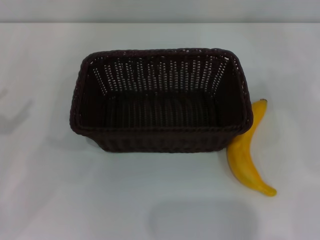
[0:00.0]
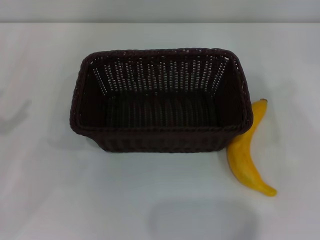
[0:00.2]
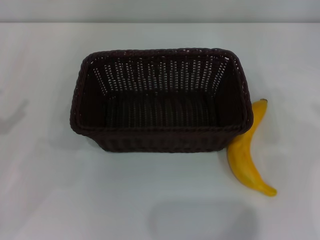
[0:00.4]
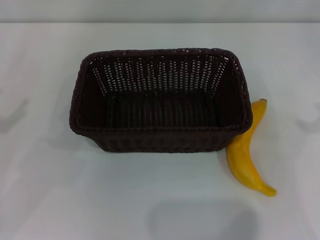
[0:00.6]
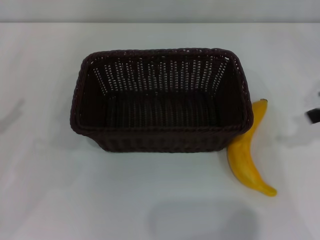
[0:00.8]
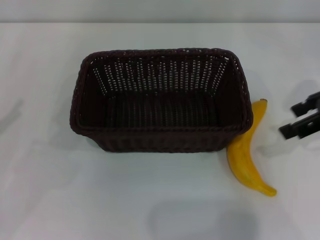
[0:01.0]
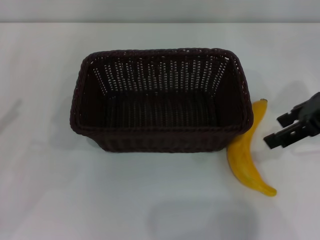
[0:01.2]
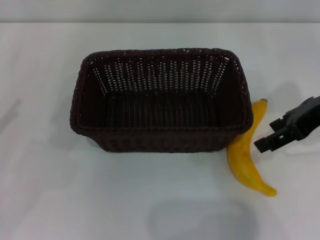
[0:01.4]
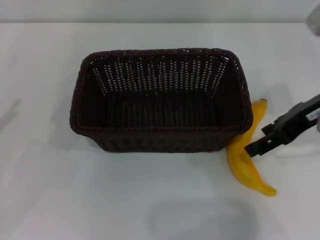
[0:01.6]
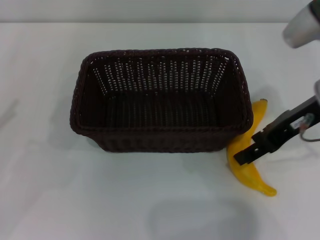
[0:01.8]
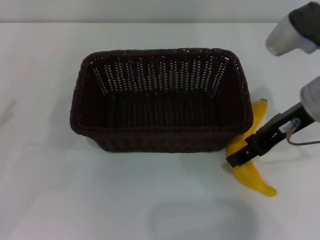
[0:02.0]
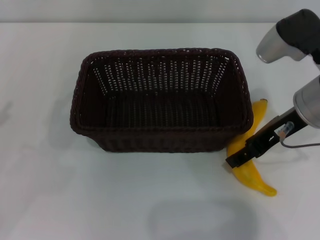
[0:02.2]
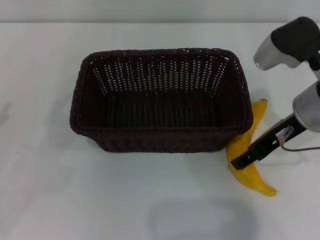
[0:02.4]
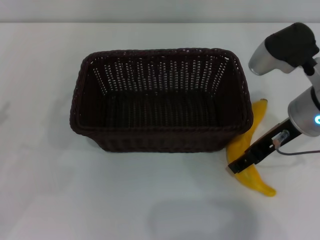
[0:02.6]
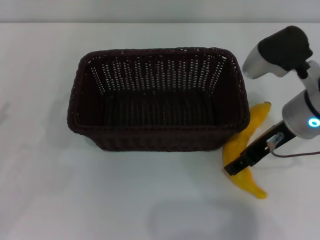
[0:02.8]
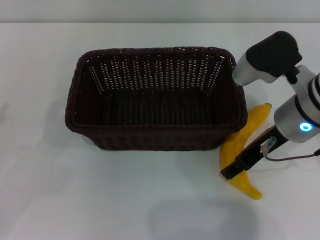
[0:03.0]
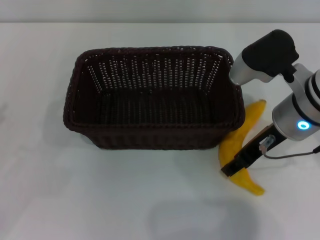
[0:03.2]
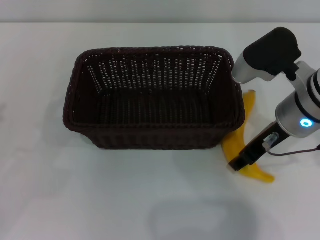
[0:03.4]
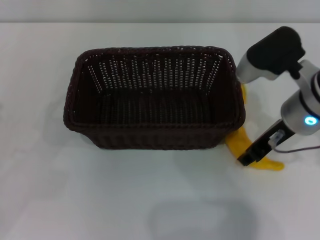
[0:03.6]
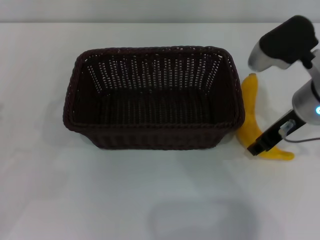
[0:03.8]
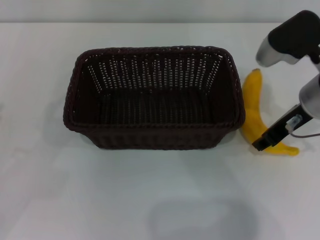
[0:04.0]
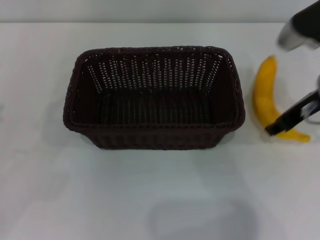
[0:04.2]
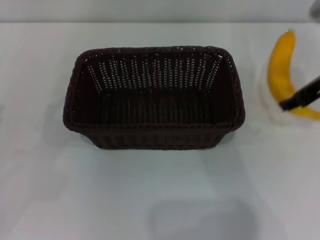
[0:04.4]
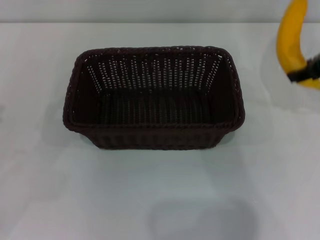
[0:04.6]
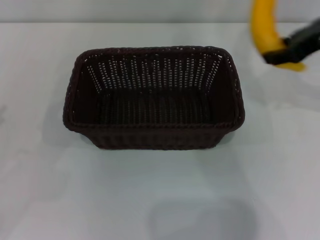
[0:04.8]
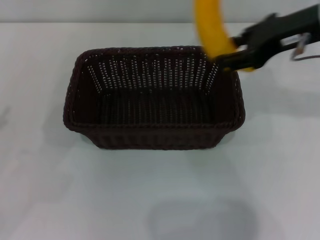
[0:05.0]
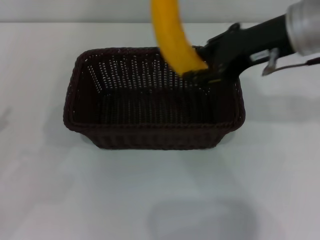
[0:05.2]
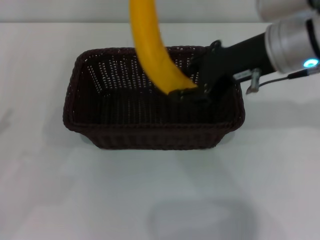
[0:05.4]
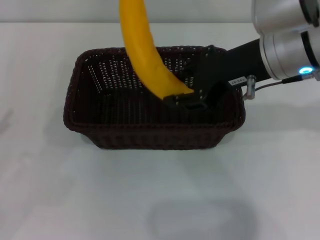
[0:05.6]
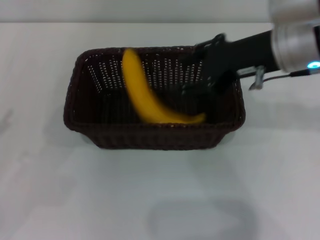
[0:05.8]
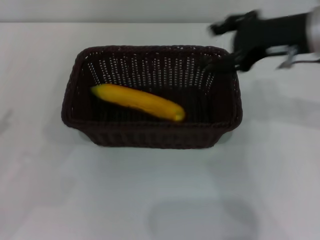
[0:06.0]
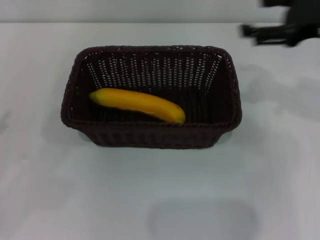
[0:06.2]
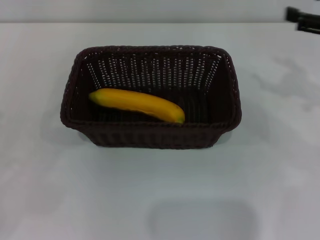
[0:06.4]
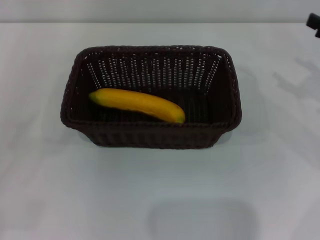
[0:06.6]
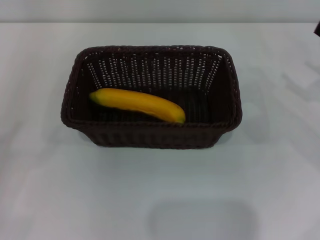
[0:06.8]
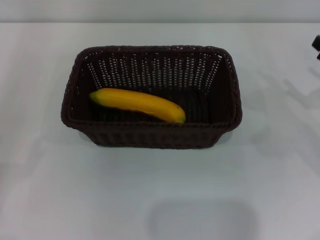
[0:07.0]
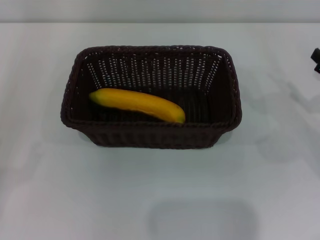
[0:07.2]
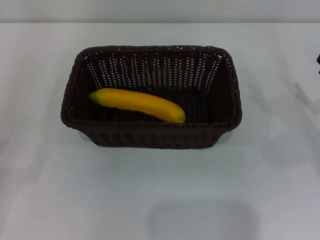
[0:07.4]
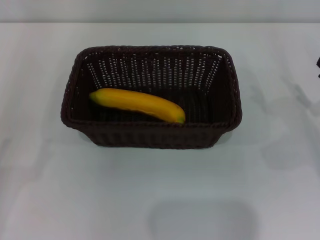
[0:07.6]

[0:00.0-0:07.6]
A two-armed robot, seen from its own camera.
Step, 0:00.0 to 0:04.2: Pick up the banana with the right gripper.
Step, 0:04.4 to 0:05.8: Place the banana into the dark basket with the right gripper.
0:00.0 to 0:01.6: The right gripper is displaced to the left by roughly 20 cm.
0:01.6 to 0:03.0: The right gripper is displaced to the left and downward by roughly 10 cm.
0:03.0 to 0:04.6: The right gripper travels to the right and upward by some 15 cm, and closes.
0:04.6 to 0:06.0: The right gripper shifts about 5 cm to the left, and opens.
0:06.0 to 0:07.6: The right gripper goes approximately 25 cm downward and to the right, and opens its fingers, while the left gripper is displaced downward and backward by about 10 cm.

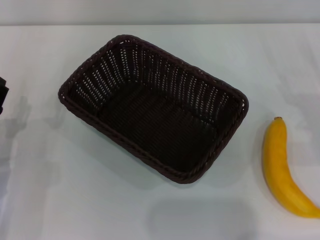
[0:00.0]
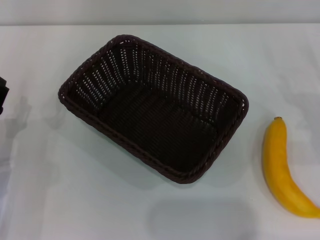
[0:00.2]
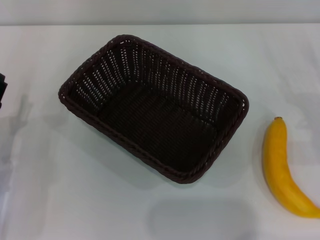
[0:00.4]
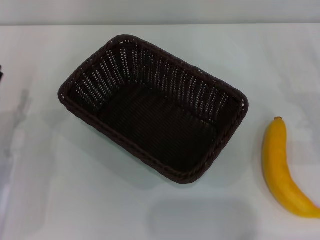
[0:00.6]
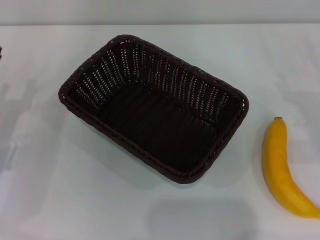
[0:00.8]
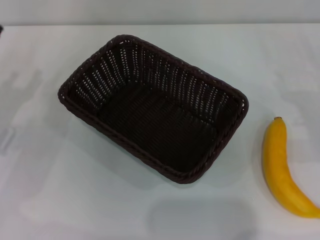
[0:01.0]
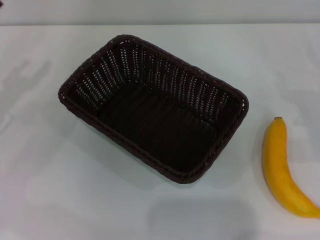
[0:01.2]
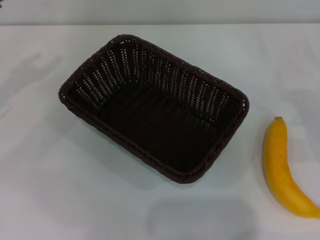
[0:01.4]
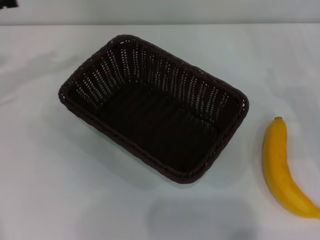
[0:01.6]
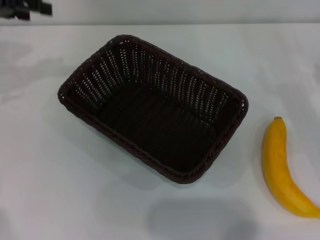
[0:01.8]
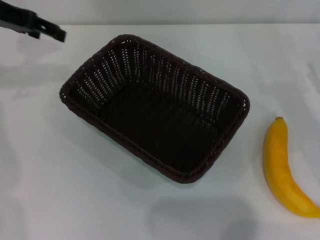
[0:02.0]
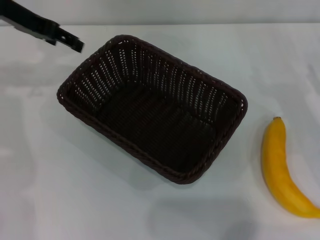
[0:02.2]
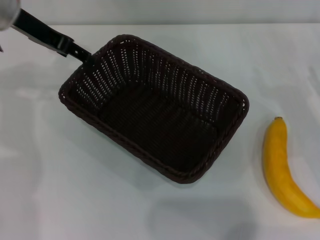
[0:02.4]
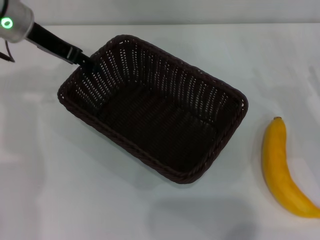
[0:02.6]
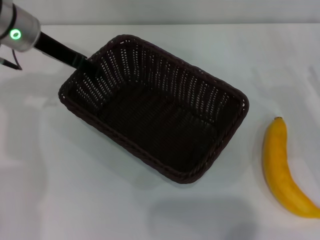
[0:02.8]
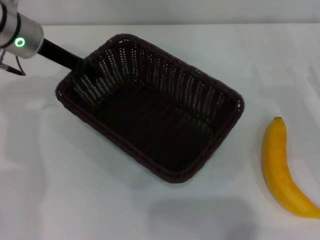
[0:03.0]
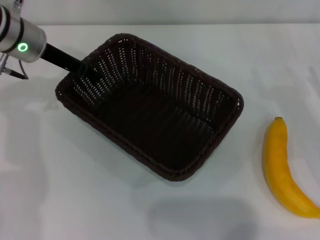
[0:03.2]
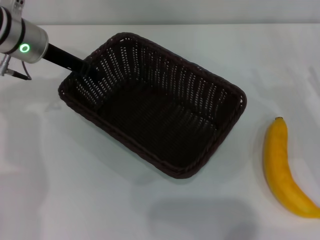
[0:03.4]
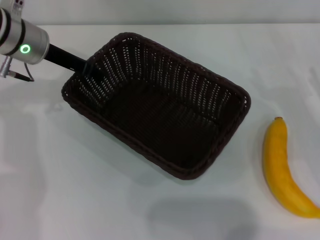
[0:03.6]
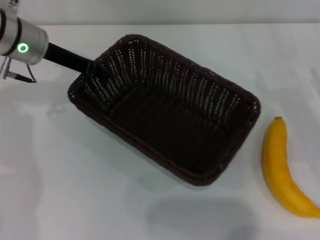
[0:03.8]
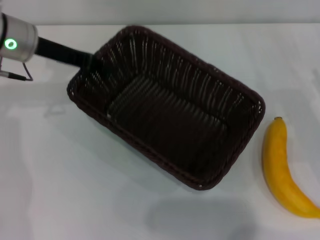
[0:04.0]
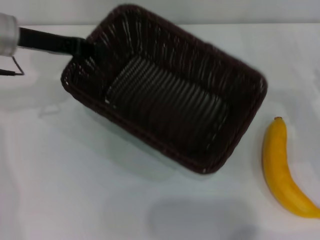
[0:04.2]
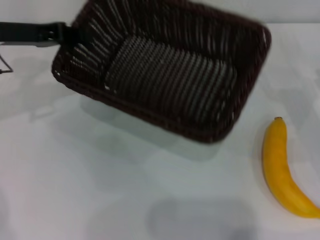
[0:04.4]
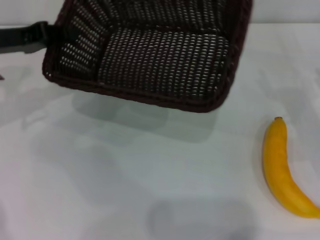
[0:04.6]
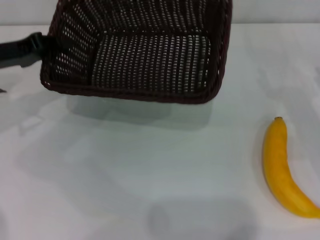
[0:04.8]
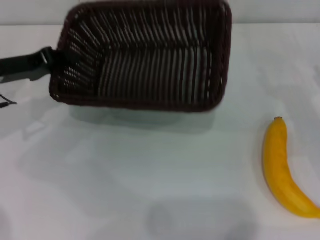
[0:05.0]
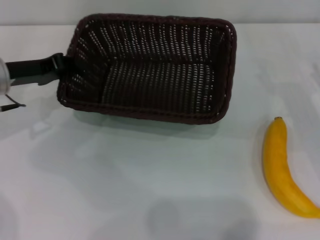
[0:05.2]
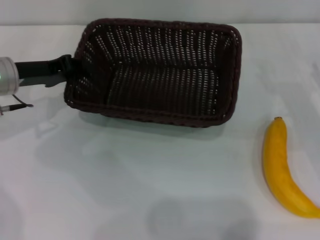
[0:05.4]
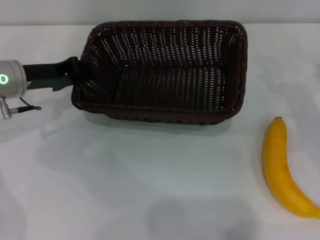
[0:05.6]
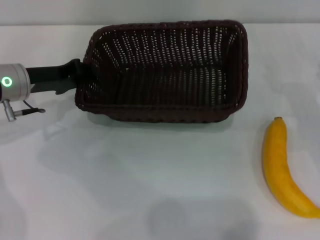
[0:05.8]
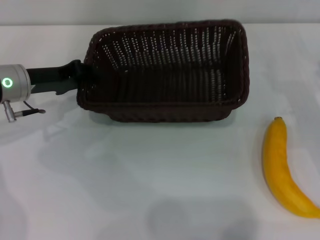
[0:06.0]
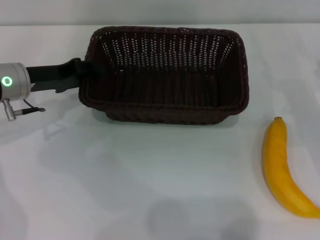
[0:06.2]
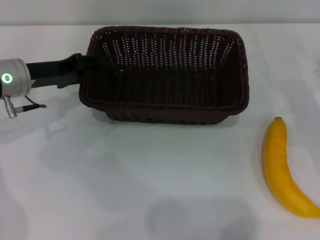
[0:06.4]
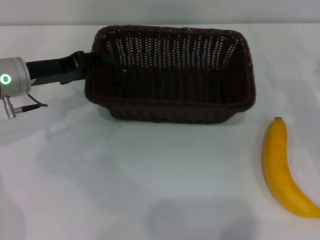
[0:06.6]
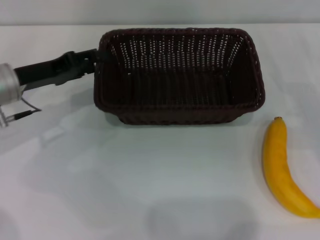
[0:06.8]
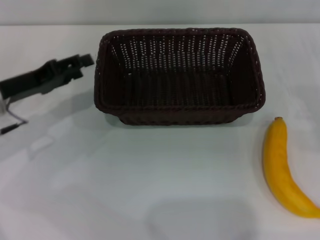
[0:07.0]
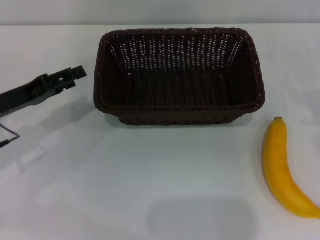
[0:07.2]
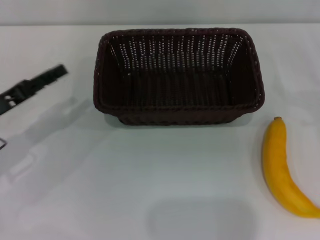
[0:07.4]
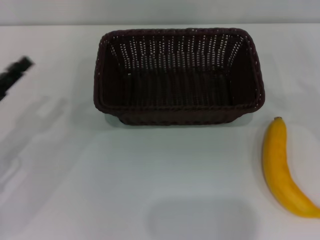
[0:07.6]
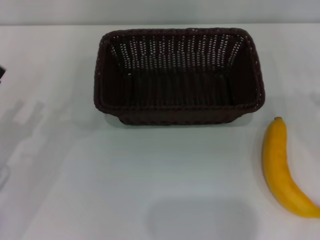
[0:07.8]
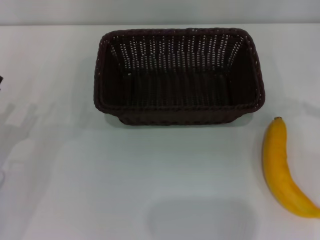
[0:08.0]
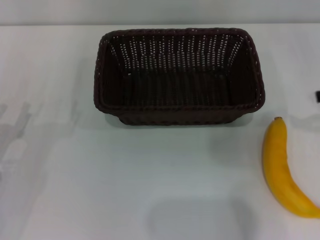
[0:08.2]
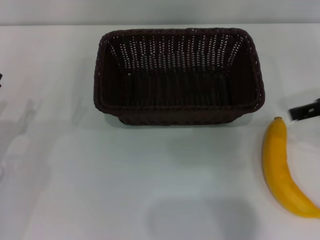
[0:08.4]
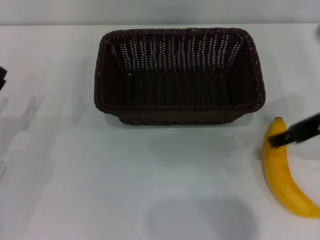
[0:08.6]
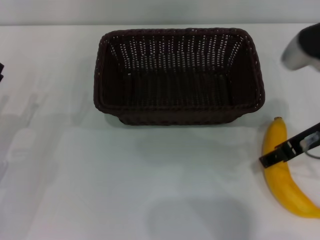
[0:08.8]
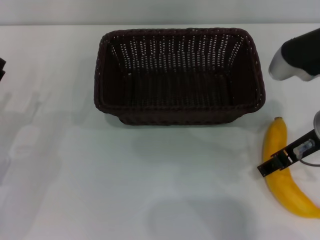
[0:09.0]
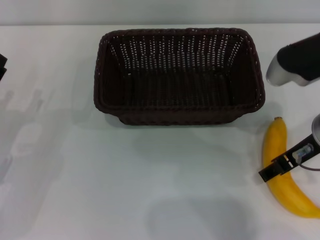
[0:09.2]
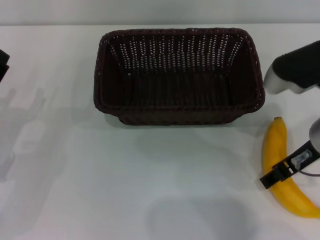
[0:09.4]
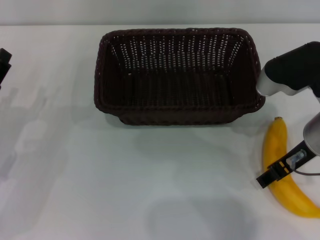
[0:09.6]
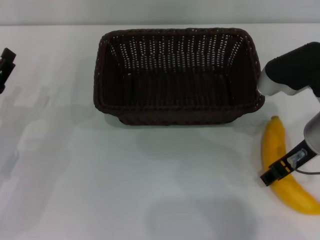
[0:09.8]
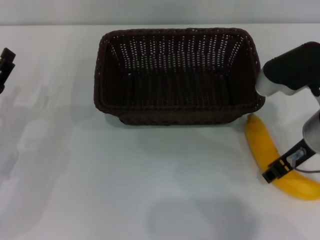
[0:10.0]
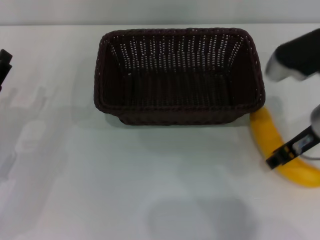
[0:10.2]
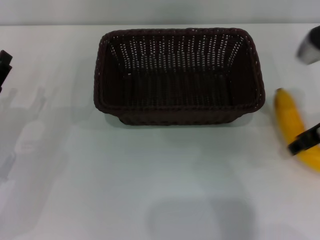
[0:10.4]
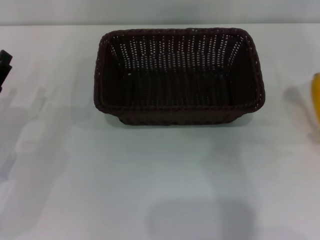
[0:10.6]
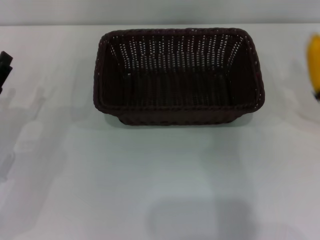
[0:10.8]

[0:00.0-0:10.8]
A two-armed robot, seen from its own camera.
Step, 0:00.0 to 0:04.0: Pick up the dark basket with the left gripper.
Step, 0:04.4 to 0:07.0: Place the dark basket in the center of view with the left gripper.
Step, 0:07.2 to 0:10.8: Pick up the banana with the right gripper.
0:00.0 to 0:01.6: The left gripper shifts approximately 25 cm upward and forward.
0:01.6 to 0:03.0: The left gripper travels to the right by roughly 15 cm.
0:03.0 to 0:04.6: The left gripper is displaced to the left and backward by approximately 10 cm, and closes up.
0:04.6 to 0:06.2: The left gripper heads downward, covering approximately 5 cm.
0:06.2 to 0:07.8: The left gripper heads backward and to the left, covering some 15 cm, and opens up. The right gripper is displaced upward and to the right by about 10 cm.
0:07.8 to 0:09.2: The right gripper moves to the left, approximately 20 cm.
0:09.2 to 0:10.8: The right gripper moves to the right and forward, roughly 10 cm, and closes.

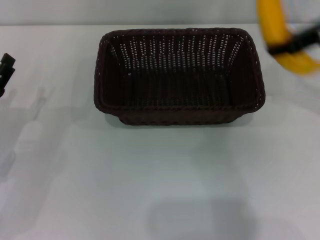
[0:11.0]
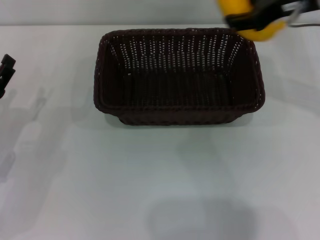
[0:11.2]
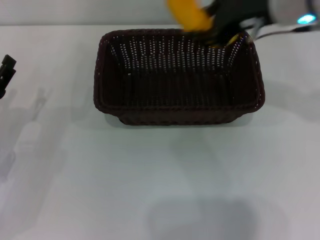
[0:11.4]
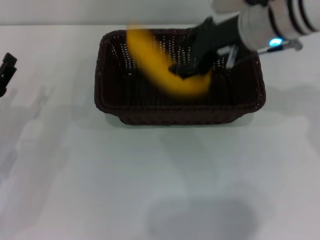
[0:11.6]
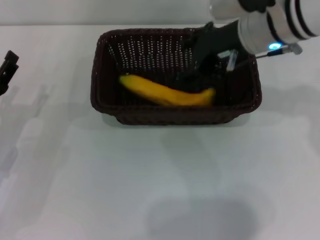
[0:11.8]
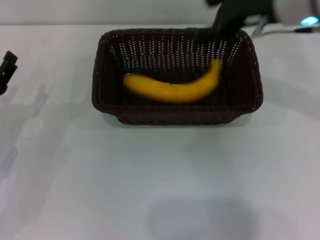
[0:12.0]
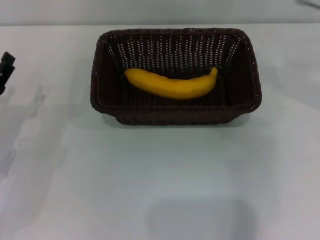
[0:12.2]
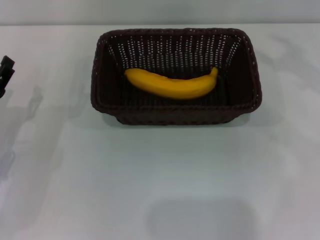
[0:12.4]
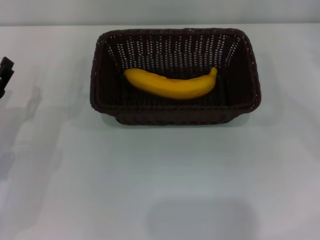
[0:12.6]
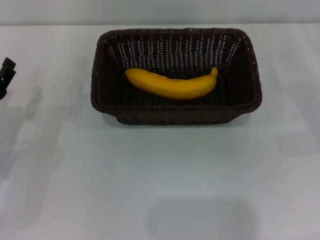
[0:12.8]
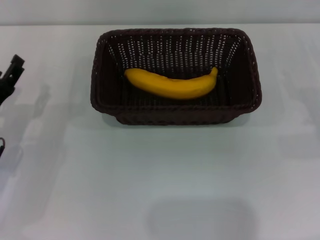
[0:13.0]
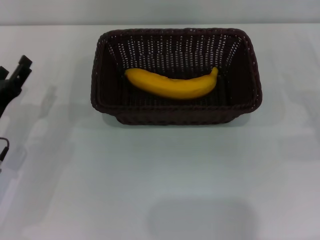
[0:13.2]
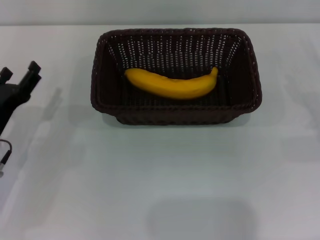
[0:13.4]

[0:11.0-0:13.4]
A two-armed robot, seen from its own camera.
Step, 0:11.0 to 0:11.8: Place the banana into the dark basket with the right gripper.
0:11.0 to 0:12.2: The right gripper travels to the left and back again, some 10 cm each way, and opens up.

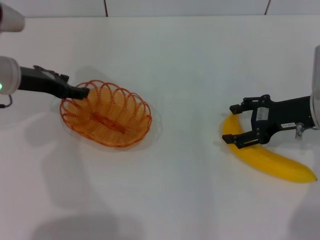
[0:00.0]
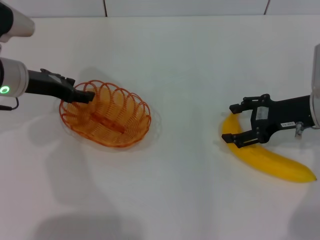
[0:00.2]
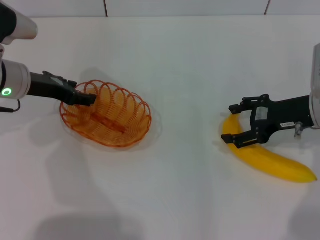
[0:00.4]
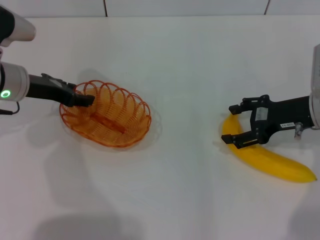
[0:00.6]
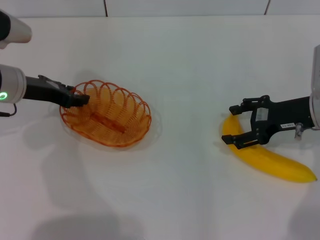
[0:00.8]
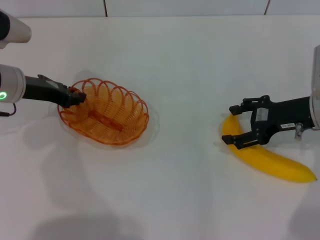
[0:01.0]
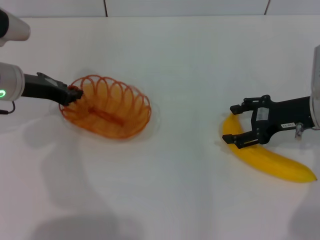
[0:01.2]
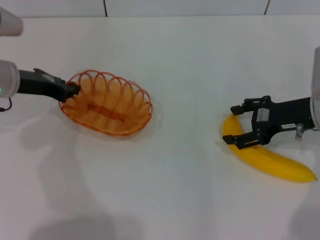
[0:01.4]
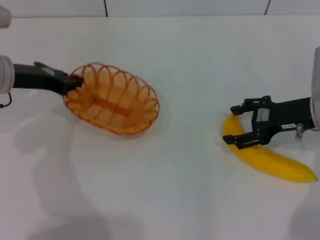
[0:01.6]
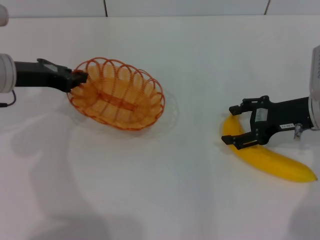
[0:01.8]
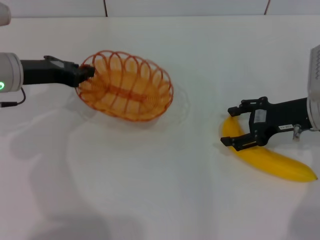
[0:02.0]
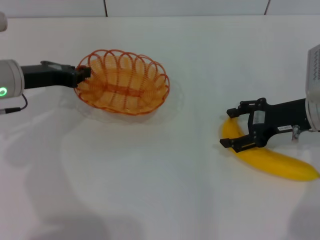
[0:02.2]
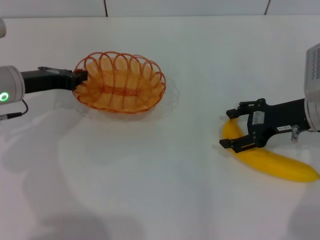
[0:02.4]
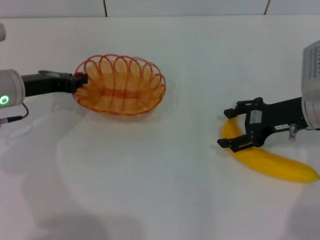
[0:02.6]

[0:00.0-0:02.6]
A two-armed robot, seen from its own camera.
Step, 0:00.0 to 0:01.8: Pick up the basket with the left gripper.
0:00.0 to 0:01.2: The left gripper closes its fingers.
